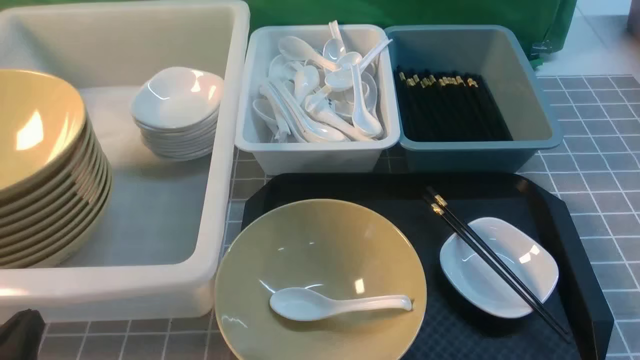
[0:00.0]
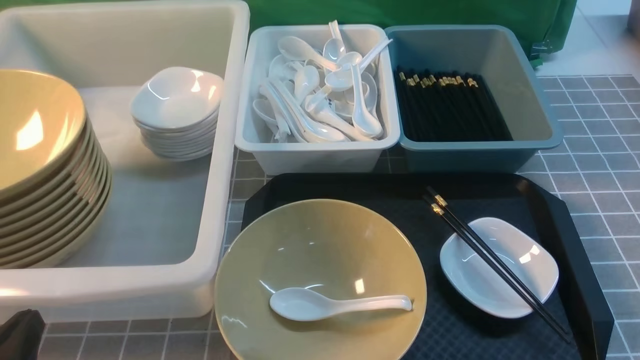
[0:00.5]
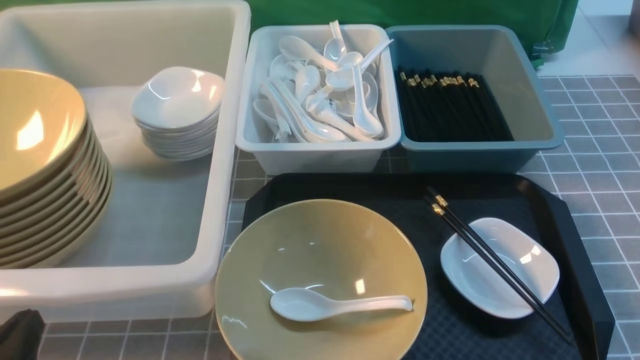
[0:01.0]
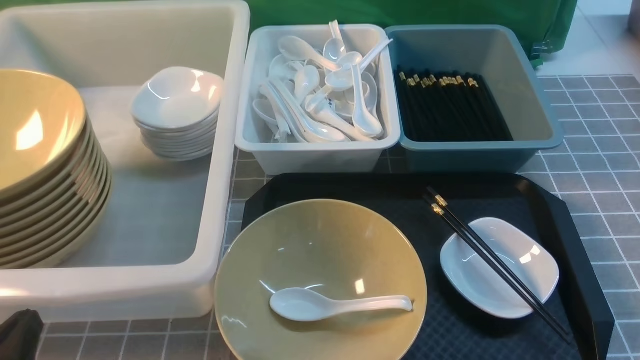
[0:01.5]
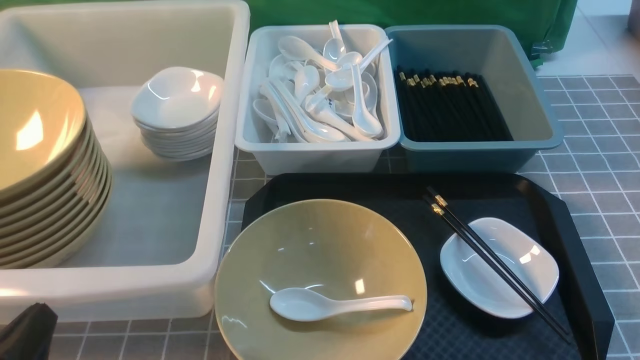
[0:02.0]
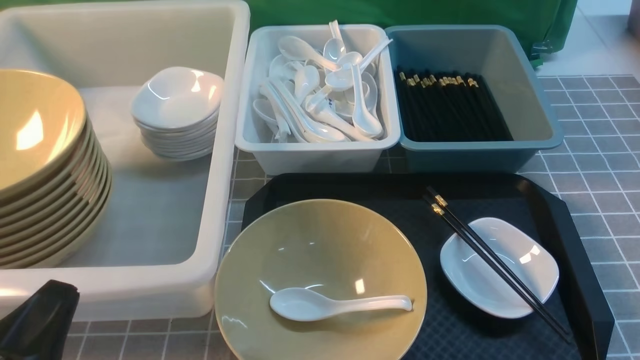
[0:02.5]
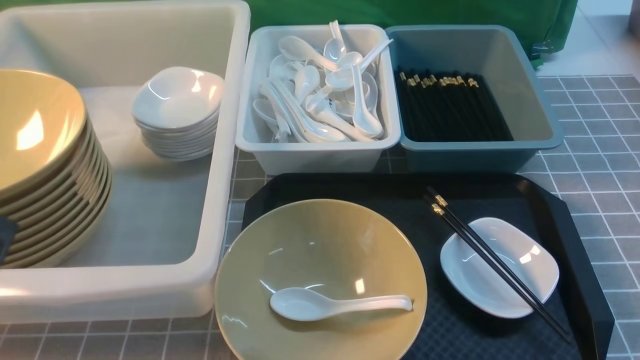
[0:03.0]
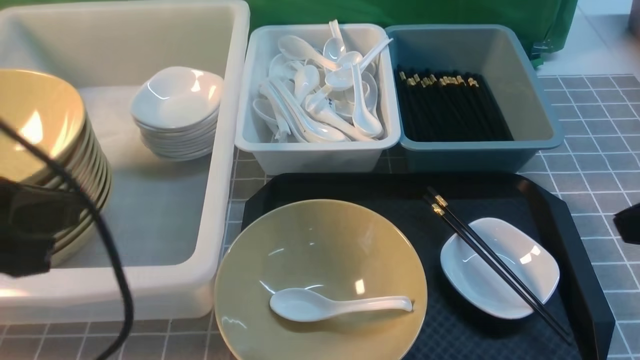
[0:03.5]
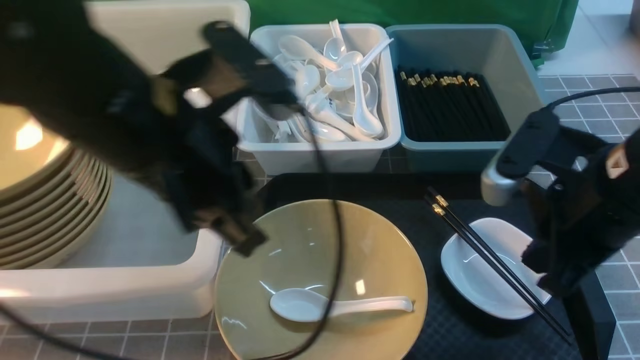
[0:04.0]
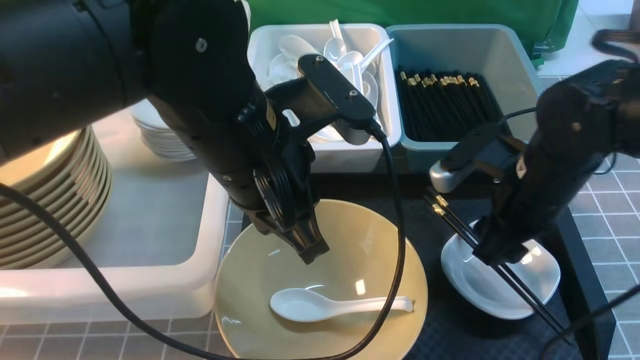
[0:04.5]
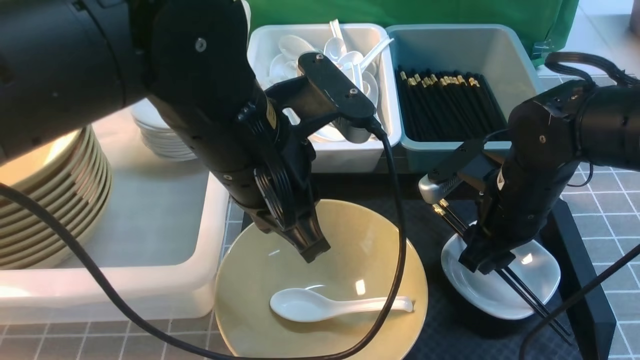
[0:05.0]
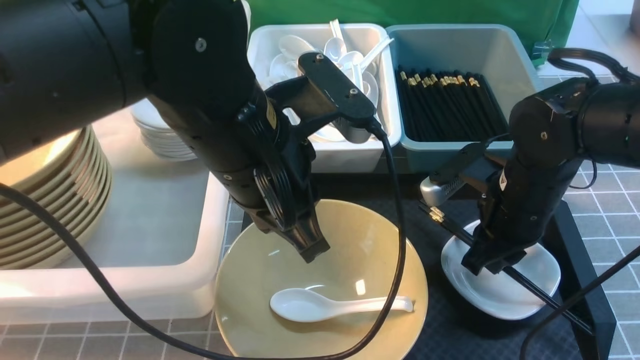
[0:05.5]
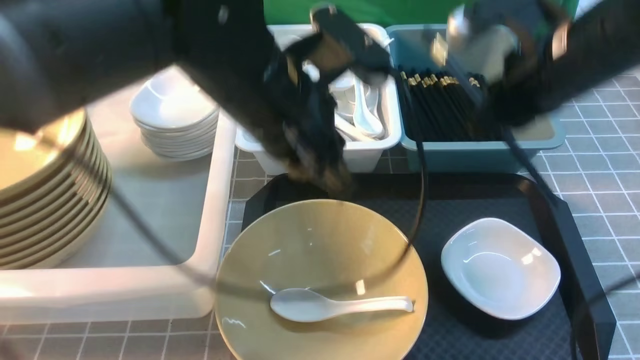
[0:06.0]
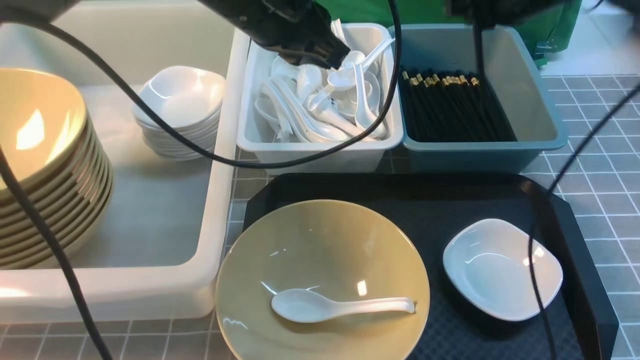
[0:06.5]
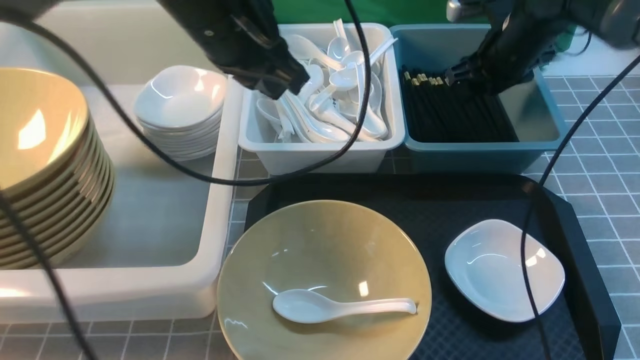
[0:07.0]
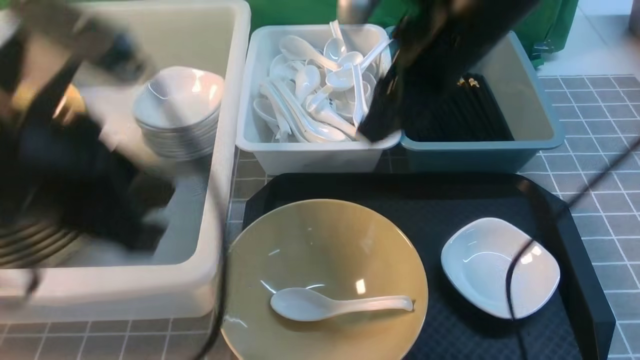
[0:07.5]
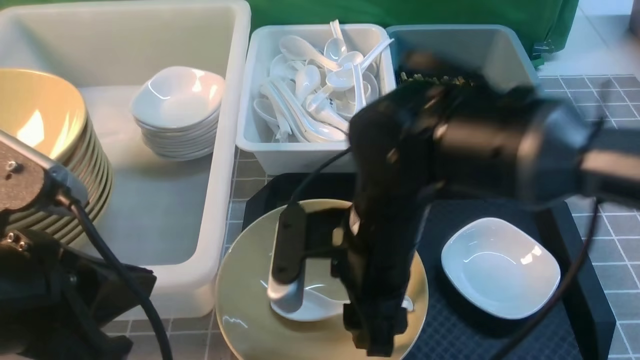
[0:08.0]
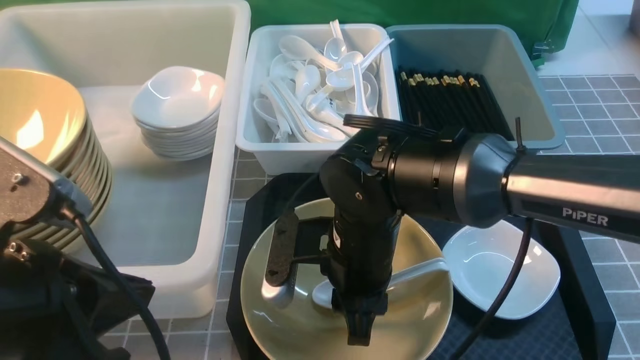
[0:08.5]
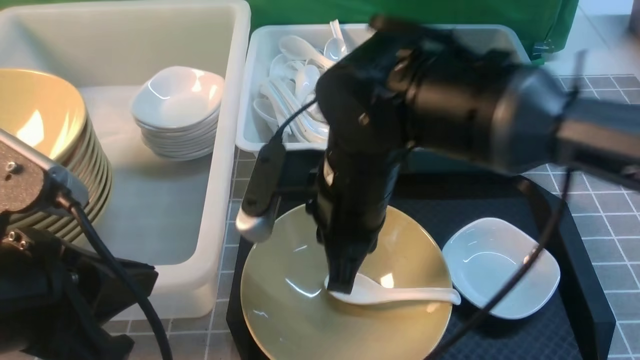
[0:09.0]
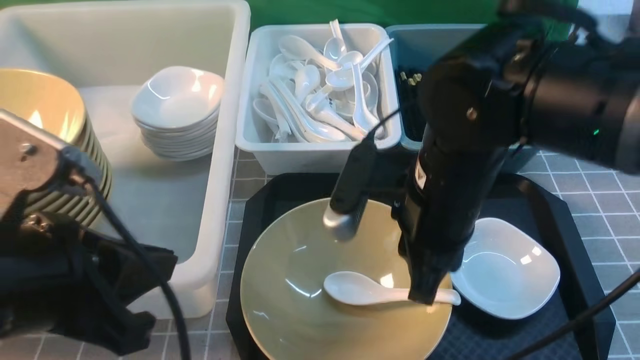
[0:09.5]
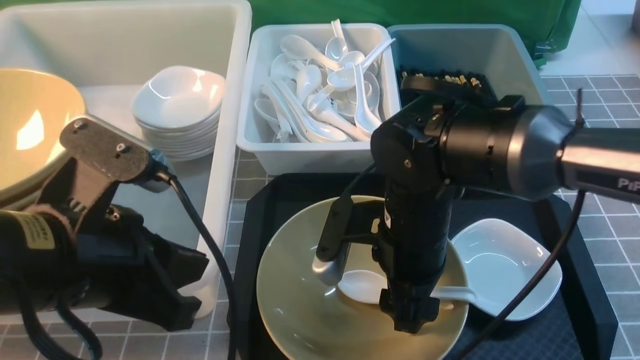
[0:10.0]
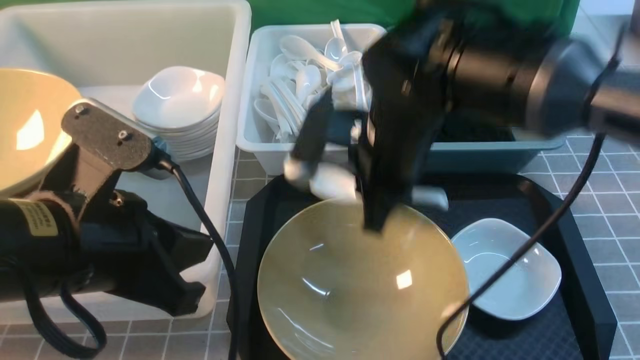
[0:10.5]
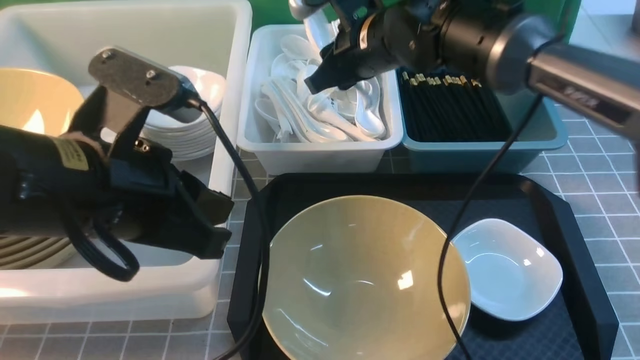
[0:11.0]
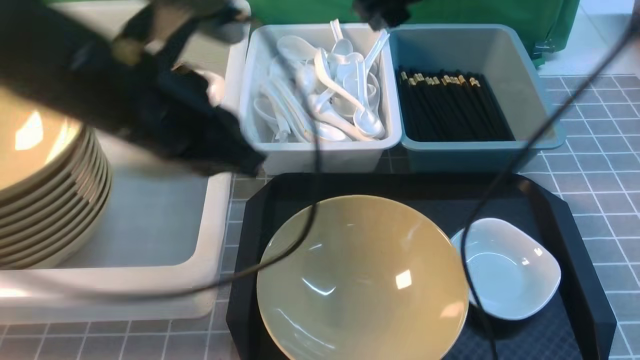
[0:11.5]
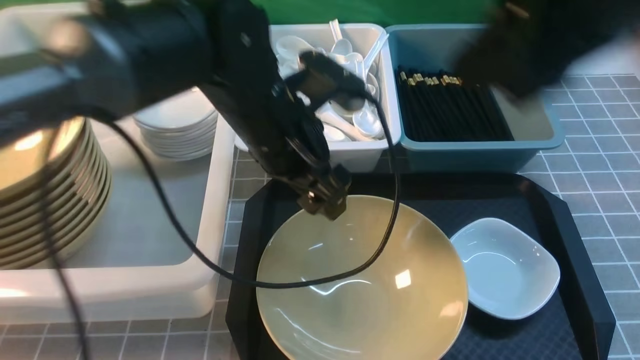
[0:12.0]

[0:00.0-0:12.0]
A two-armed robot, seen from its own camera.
Task of the whole recording: on grey table put chopsticks spoon bowls plates into blue grey white boxes.
Step, 0:00.0 to 0:05.5: use the right arm to grab the chopsticks.
Step, 0:06.0 to 0:06.5: use the right arm to put the chopsticks into the small storage box on the right.
Step, 0:07.5 to 0:10.5: use the right arm to grab the soup spoon in the middle.
0:02.0 to 0:04.0: The left gripper moves upward, forward and to the right, approximately 25 cm, while the right gripper goes about 25 cm forward, upward and to the left.
0:04.0 to 0:06.0: The right gripper is displaced forward by roughly 10 cm, travels downward and back again, approximately 10 cm each way, and opens, then closes again. Meanwhile the left gripper is displaced forward and to the right by roughly 10 cm.
0:06.0 to 0:08.0: The left gripper moves backward and to the left, some 25 cm. Meanwhile the right gripper heads to the left, downward and backward, covering roughly 20 cm, and opens up.
0:08.0 to 0:10.0: The right gripper moves some 5 cm, and closes and opens again, while the left gripper shifts by roughly 5 cm.
0:10.0 to 0:12.0: The right gripper moves upward, some 25 cm, and closes its fingers. The left gripper shifts some 20 cm forward and to the right, and opens up.

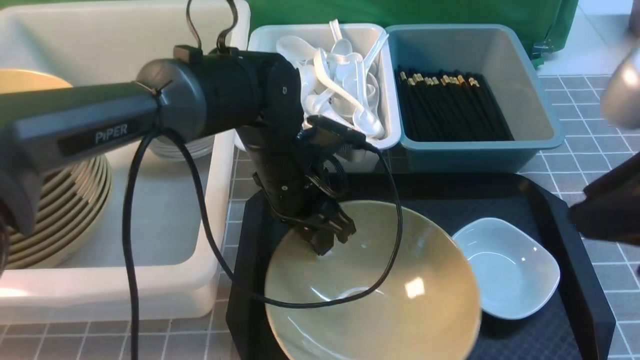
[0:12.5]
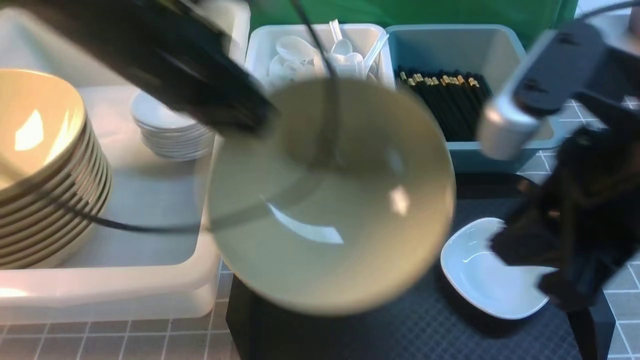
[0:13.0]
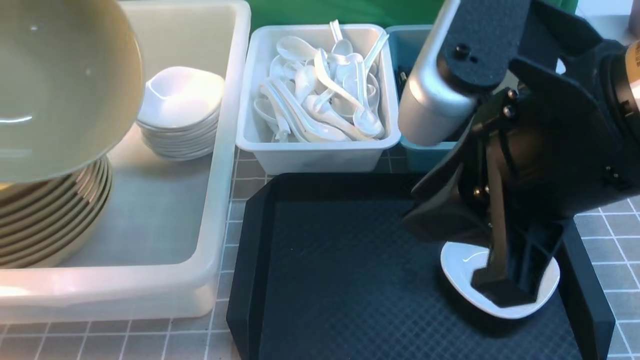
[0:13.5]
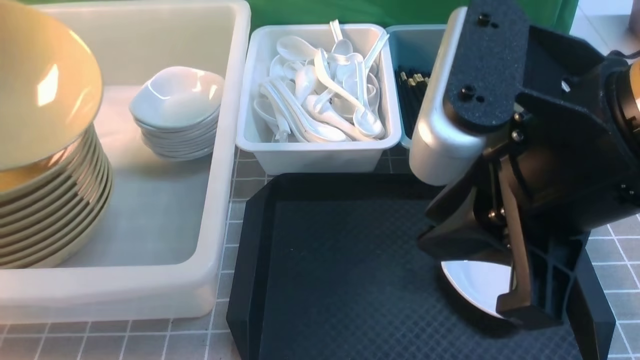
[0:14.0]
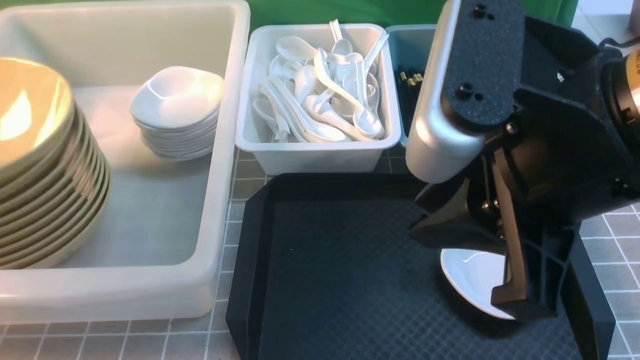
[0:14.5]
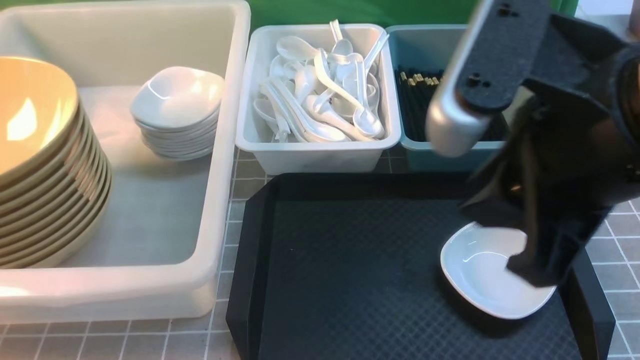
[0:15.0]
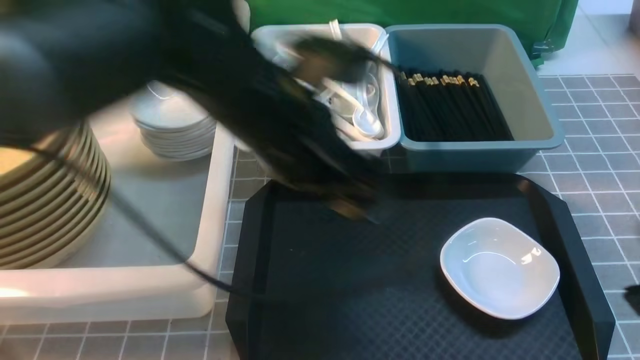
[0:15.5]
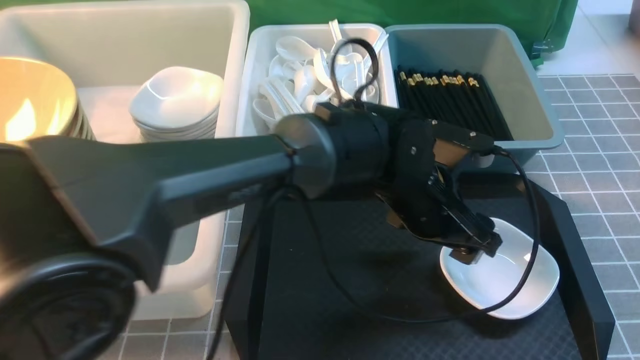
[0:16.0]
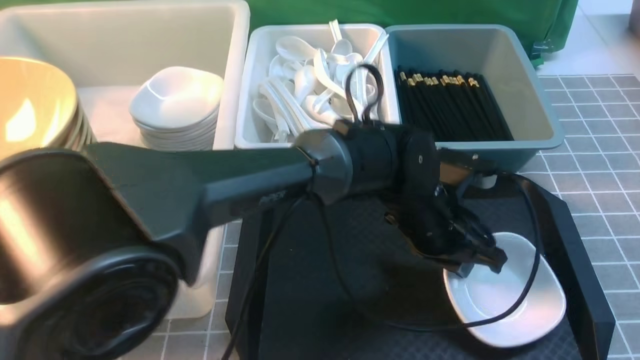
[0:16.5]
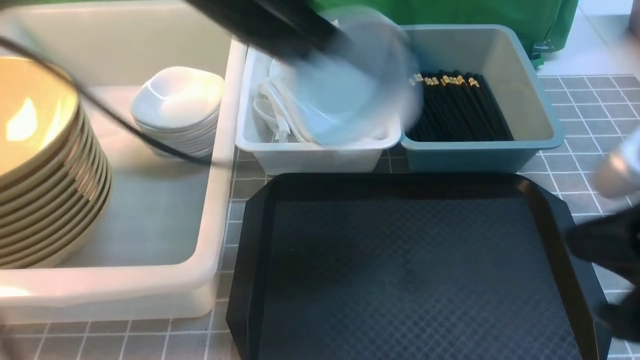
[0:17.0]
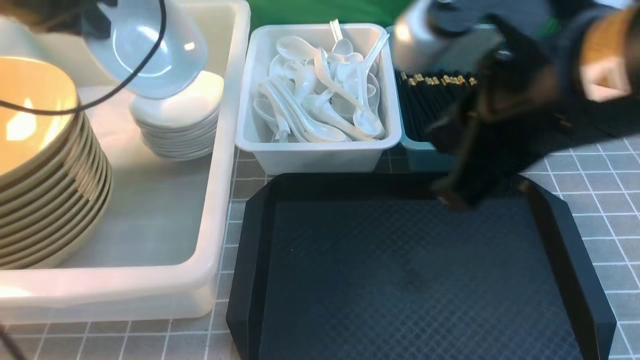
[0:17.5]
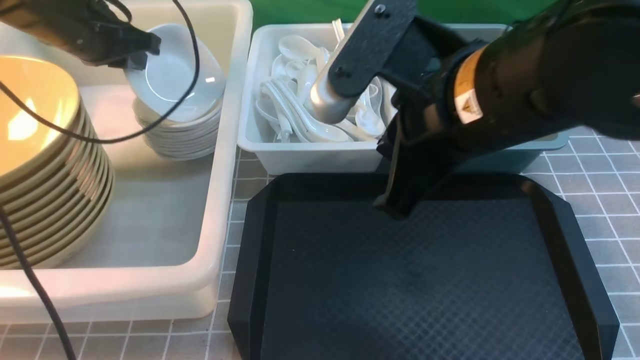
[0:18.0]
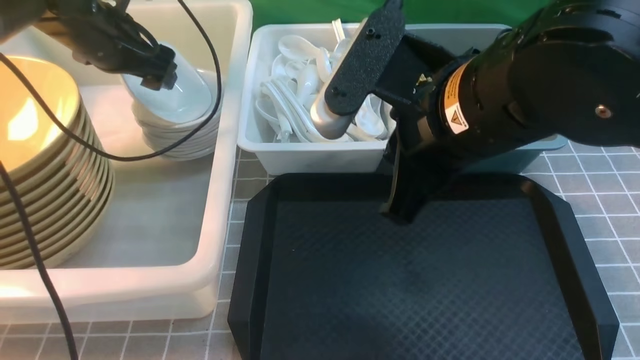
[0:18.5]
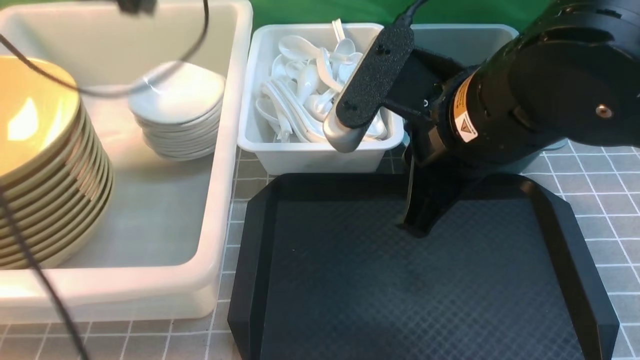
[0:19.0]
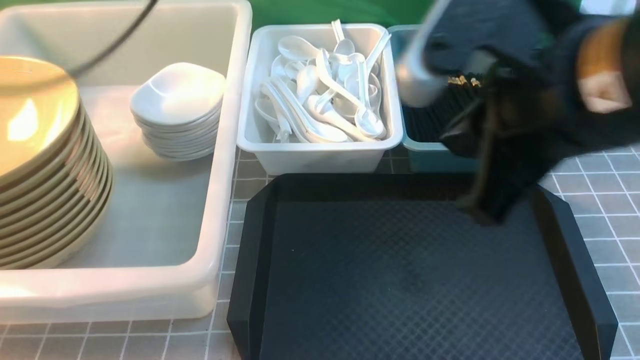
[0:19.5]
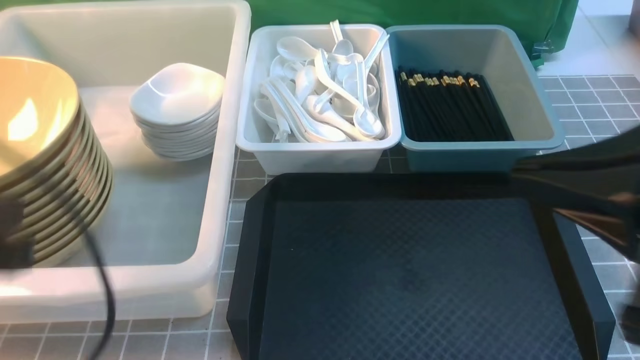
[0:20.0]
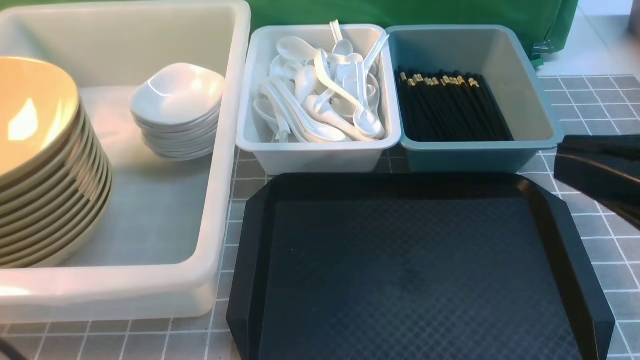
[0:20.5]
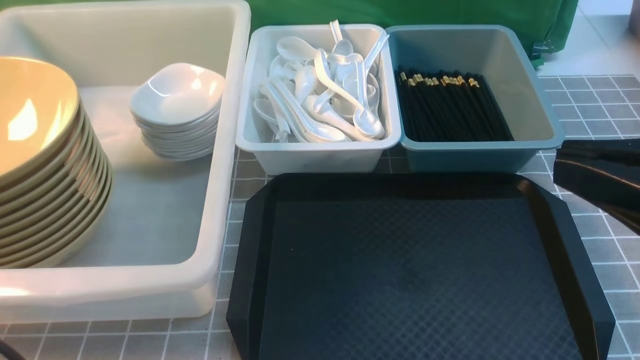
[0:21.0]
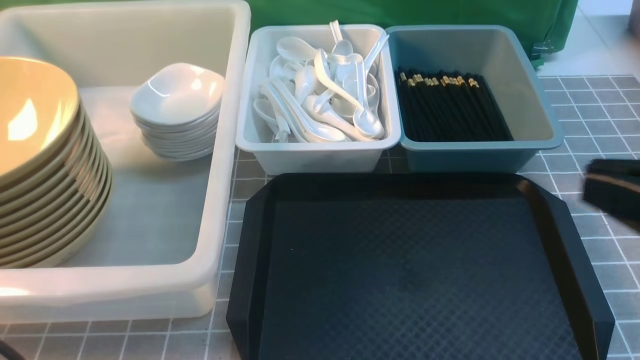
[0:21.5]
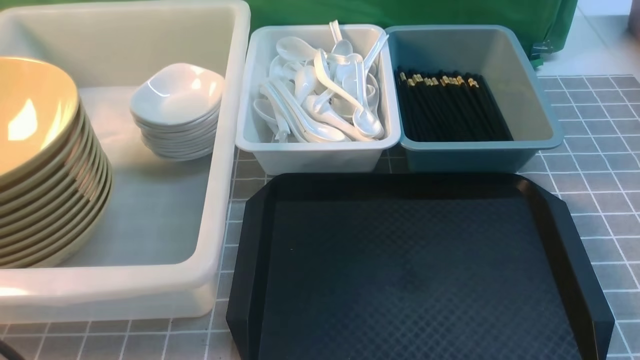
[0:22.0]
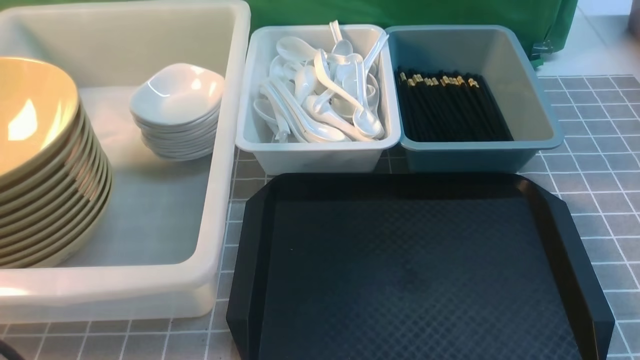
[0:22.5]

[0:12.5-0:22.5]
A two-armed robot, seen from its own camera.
Task of the whole recording: on grey table put chopsticks spoon bowls plates into blue grey white boxes.
Step, 0:13.0 to 0:14.5: use the left arm to put the noodle bowl into the large storage box on the left.
Step, 0:15.0 to 0:16.5: use the left arm to grab the plate.
Step, 0:17.0 to 0:19.0: use the left arm to put the plate into the large storage box on the left.
0:12.5 to 0:14.5: The right gripper goes approximately 5 cm to the left. The left gripper is displaced to the left and upward by some 40 cm, and opens up.
0:14.5 to 0:16.5: The left gripper heads to the right, covering some 50 cm, and closes. Meanwhile the right gripper is displaced to the right and backward by about 15 cm.
0:16.5 to 0:18.5: Both grippers travel together to the left and forward, about 30 cm. The left gripper opens up; the right gripper closes.
0:18.5 to 0:20.5: The right gripper shifts about 20 cm backward and to the right. The left gripper is displaced backward by some 40 cm, and closes.
0:20.5 to 0:22.5: The right gripper heads downward and to the right, covering roughly 25 cm.
